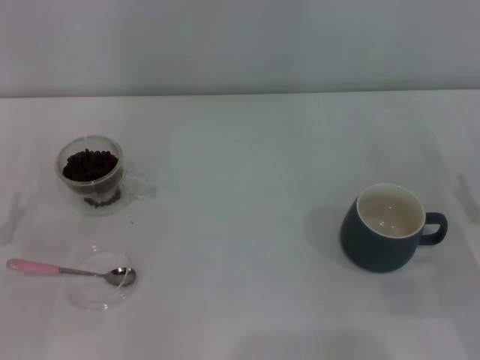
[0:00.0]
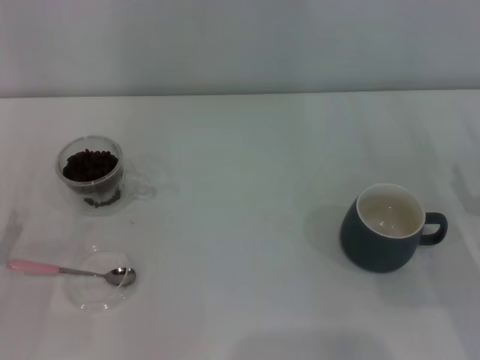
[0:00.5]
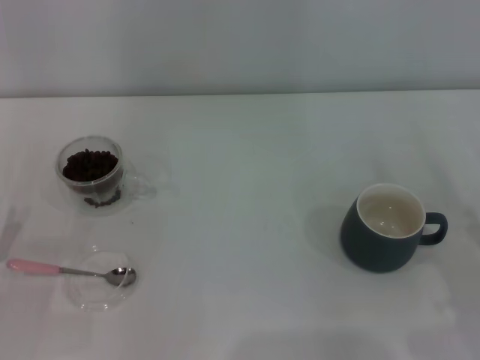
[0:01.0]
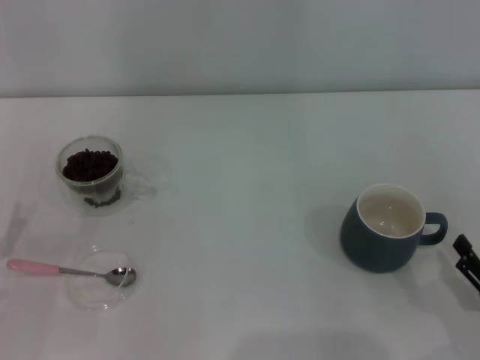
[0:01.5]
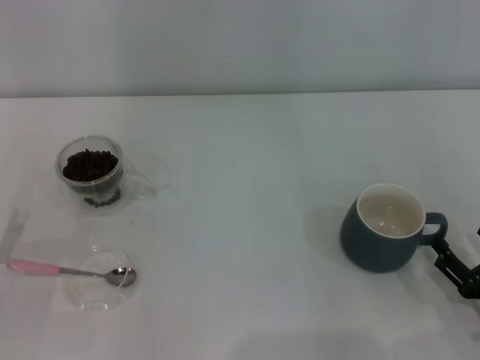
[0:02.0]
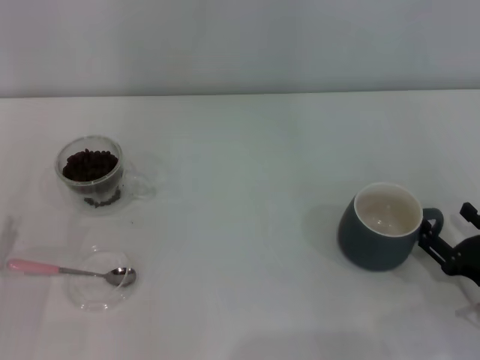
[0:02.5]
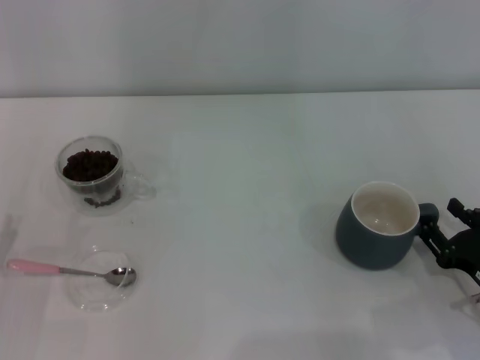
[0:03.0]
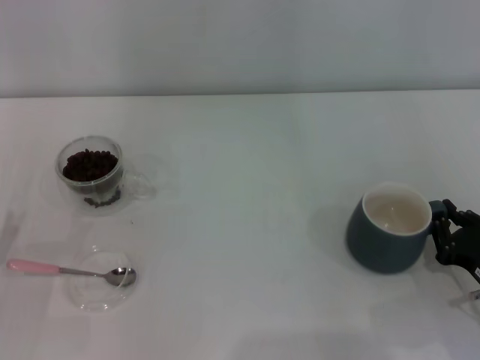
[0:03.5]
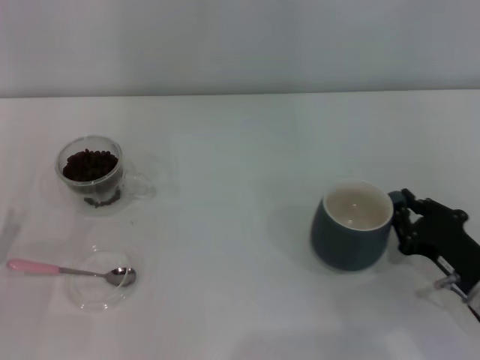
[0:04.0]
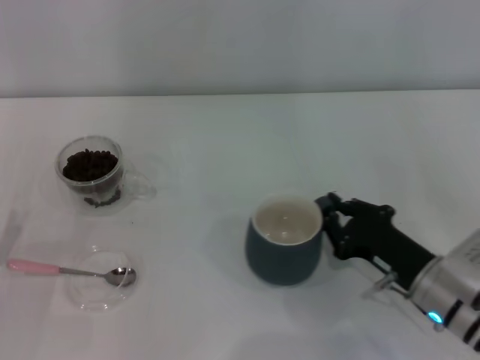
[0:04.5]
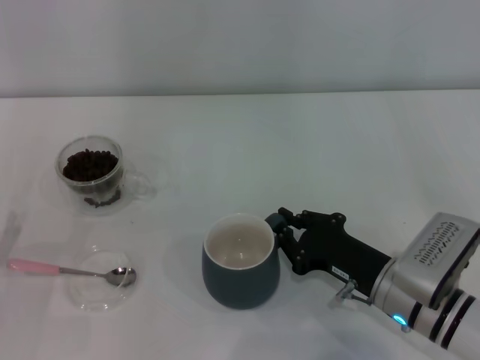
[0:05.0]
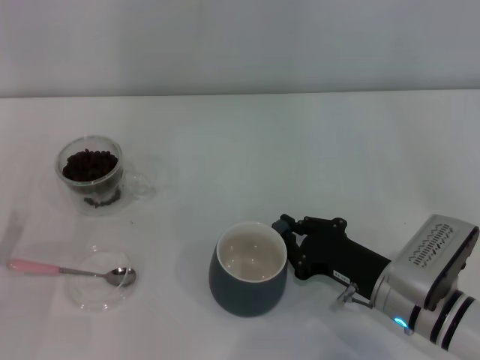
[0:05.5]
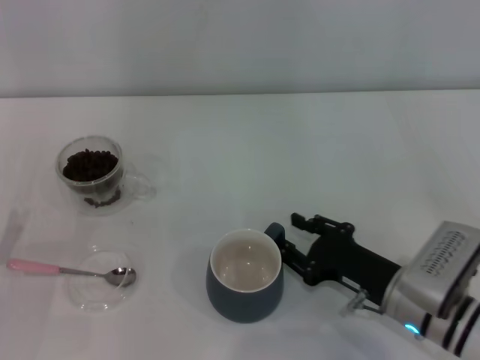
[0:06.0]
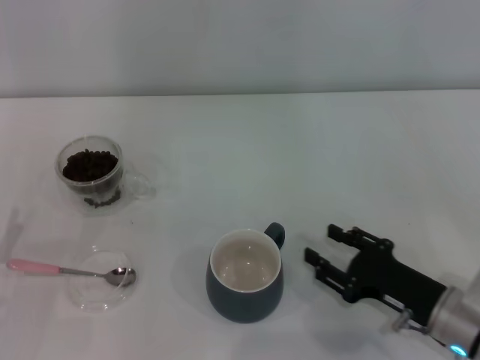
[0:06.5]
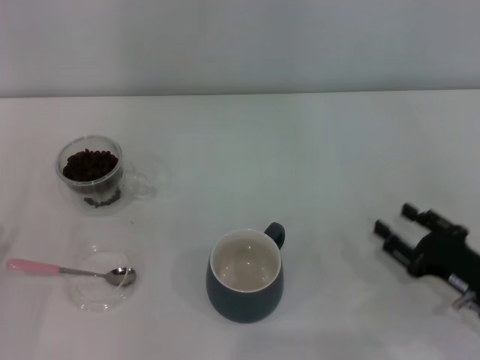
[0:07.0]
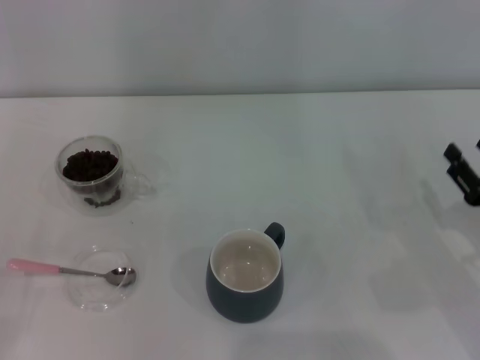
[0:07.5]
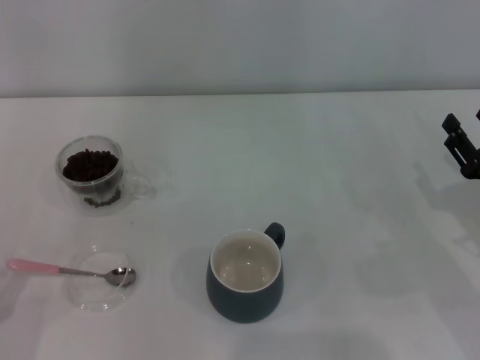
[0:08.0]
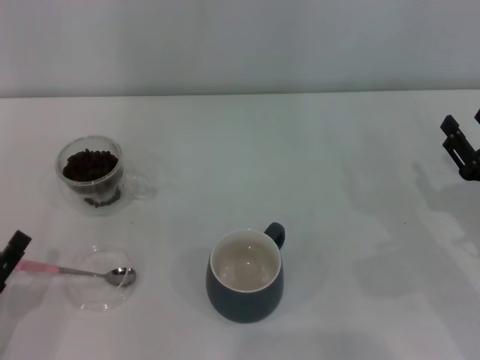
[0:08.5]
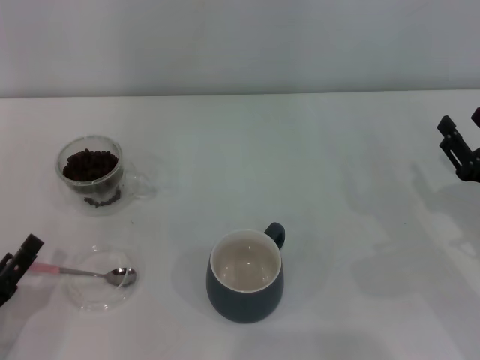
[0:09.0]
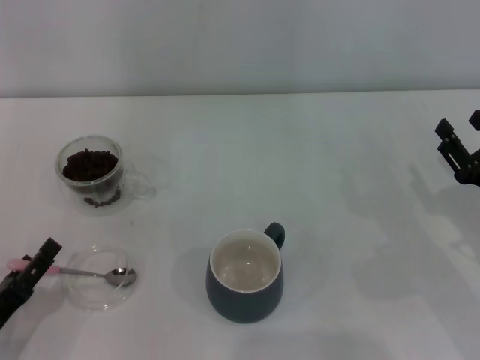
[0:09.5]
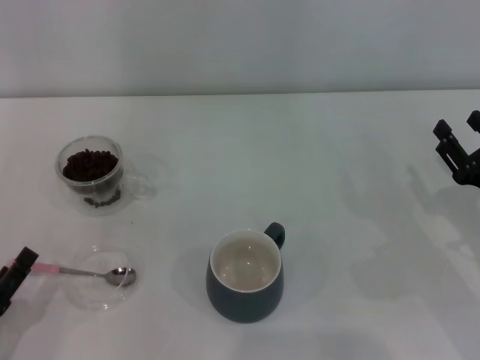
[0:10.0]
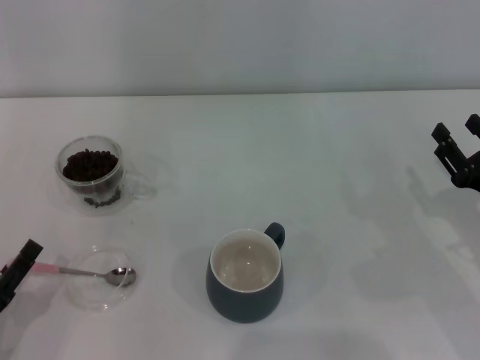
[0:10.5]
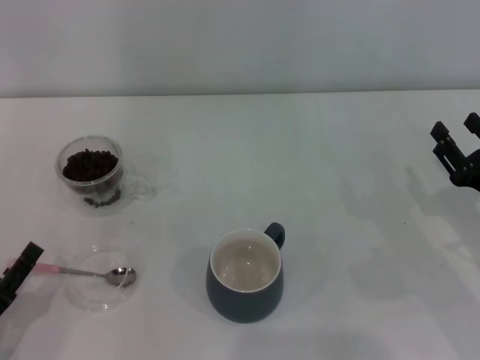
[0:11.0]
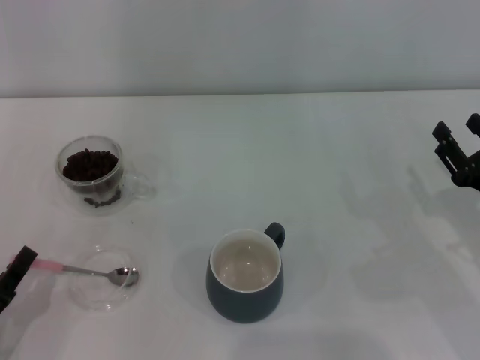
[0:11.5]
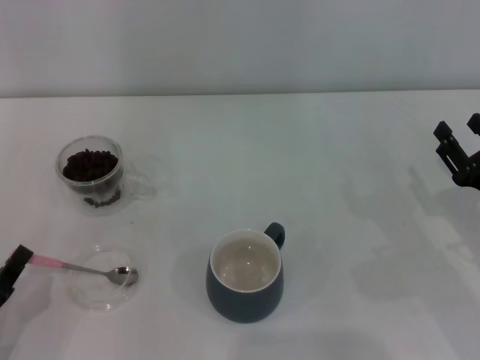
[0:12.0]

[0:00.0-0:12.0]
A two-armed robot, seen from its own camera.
Task of the whole recording: Use a pink spoon to take out the coffee beans from the glass and pour them into the gray cup.
Step, 0:00.0 to 0:06.5: Move the cup to the center of view with the left gripper.
0:00.0 to 0:02.0: The right gripper is displaced backward by approximately 5 cm.
0:02.0 to 0:04.0: The right gripper shifts approximately 5 cm forward, and closes.
0:04.0 to 0:06.0: The right gripper heads to the left, covering roughly 5 cm.
0:06.0 to 0:08.0: The left gripper is displaced backward by approximately 5 cm. Meanwhile the right gripper is displaced to the right by approximately 15 cm, and opens.
0:08.0 to 0:10.0: The grippers move only a little.
0:10.0 to 0:12.0: The left gripper closes.

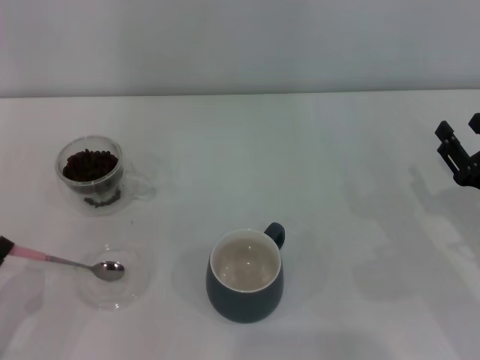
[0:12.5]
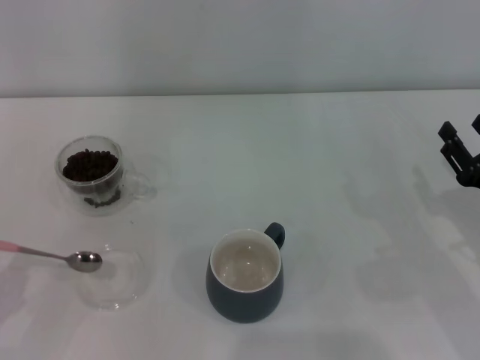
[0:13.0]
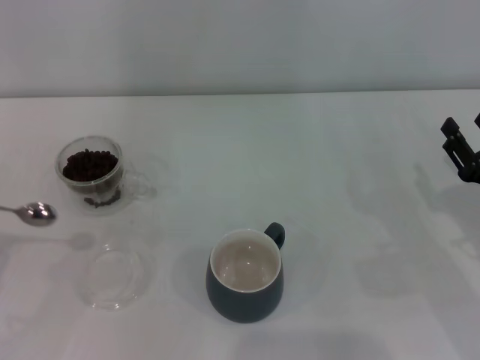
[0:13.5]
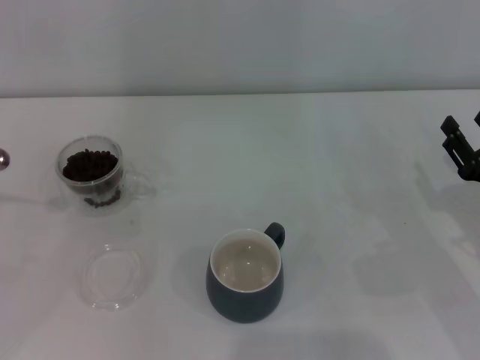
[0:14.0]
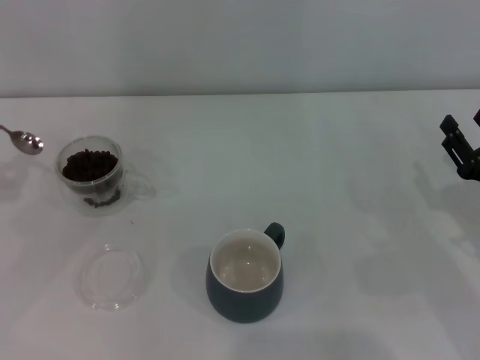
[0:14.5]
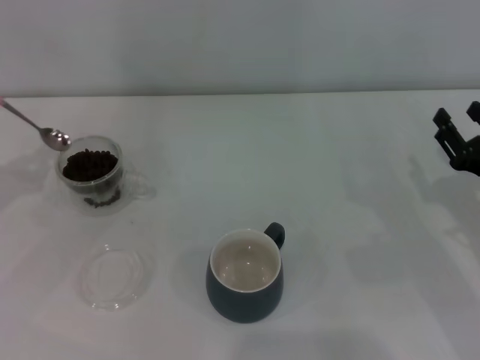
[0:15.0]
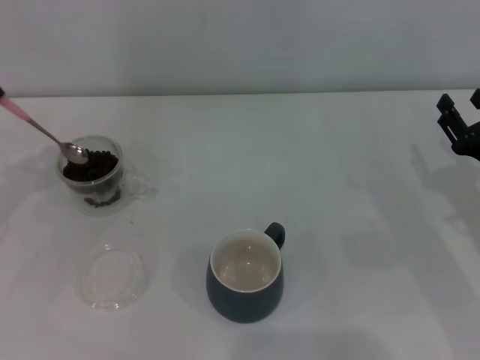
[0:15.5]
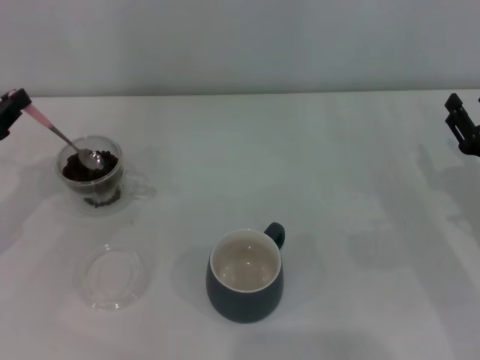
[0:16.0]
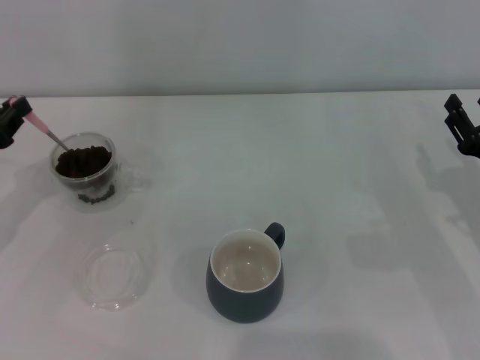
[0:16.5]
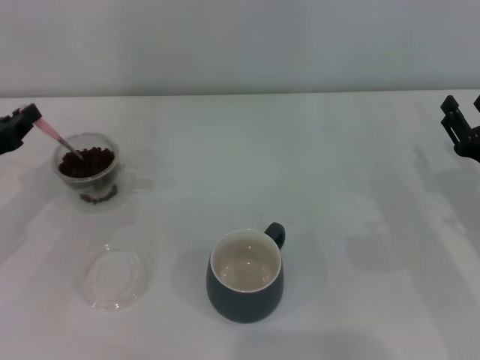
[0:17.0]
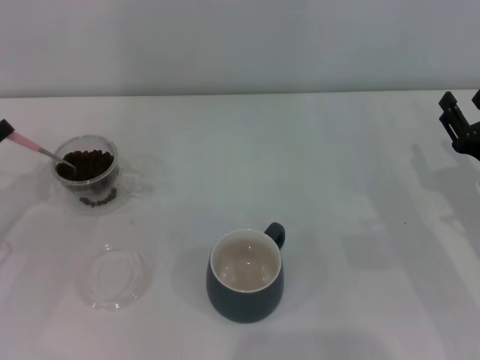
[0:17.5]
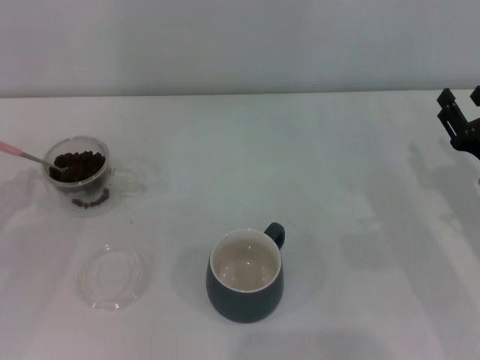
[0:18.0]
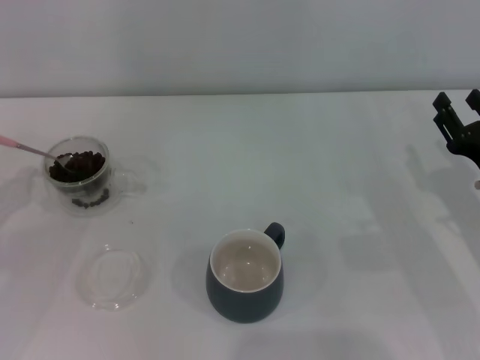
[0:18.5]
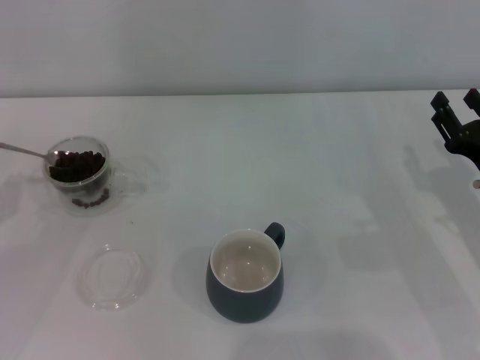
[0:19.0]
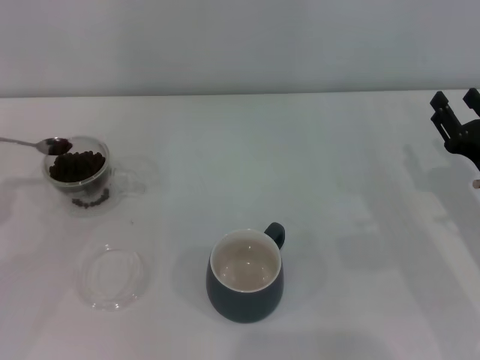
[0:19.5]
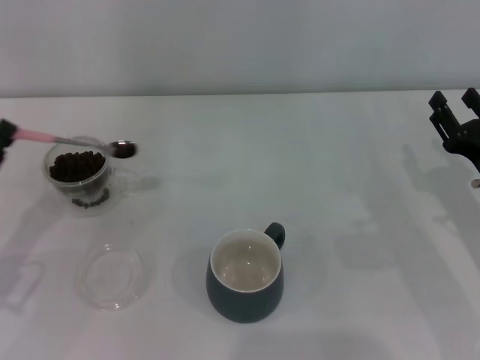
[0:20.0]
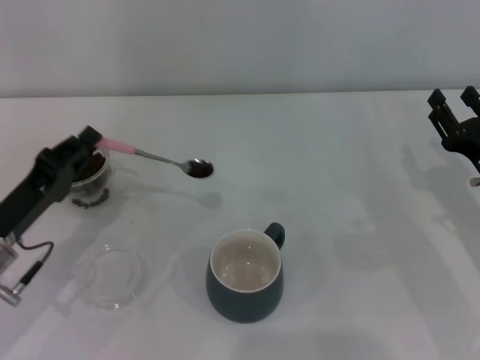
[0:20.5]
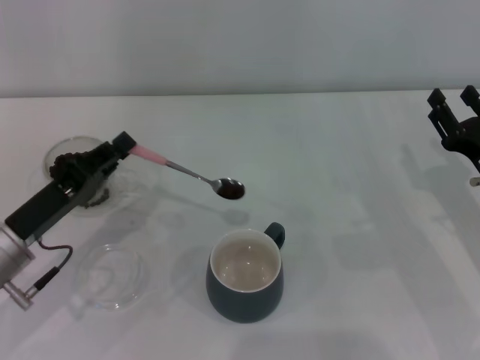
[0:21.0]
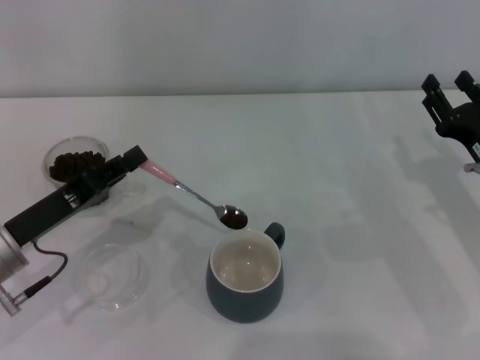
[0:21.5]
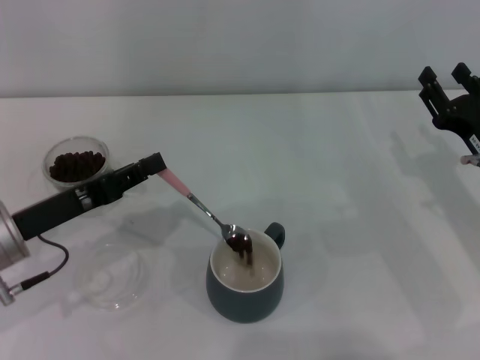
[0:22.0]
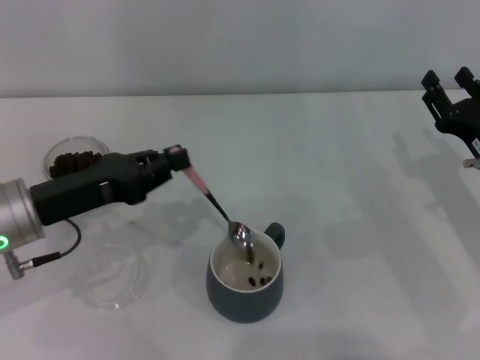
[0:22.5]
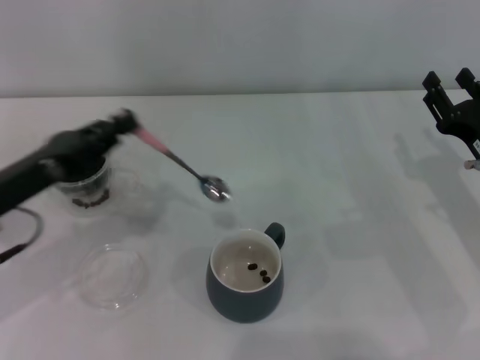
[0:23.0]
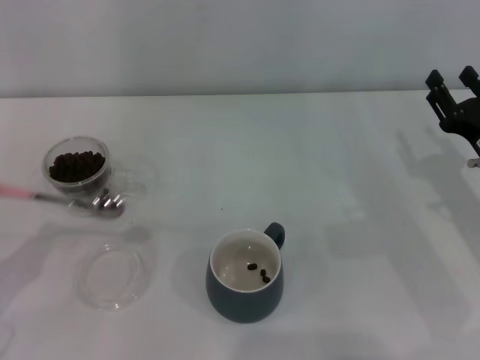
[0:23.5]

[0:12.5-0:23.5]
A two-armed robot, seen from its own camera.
Task of the whole recording: Use a pink spoon to take out the coffee beans from the glass and pour them into the gray cup.
0:12.5 to 0:14.5: The left gripper moves forward, upward and to the left, some 20 cm.
0:14.5 to 0:16.0: The left gripper heads to the right, covering about 5 cm.
0:16.0 to 0:18.0: The left gripper ends up roughly 5 cm from where it was.
0:18.0 to 0:20.0: The left gripper changes place by approximately 5 cm.
0:20.0 to 0:21.5: The left gripper moves to the right, about 5 cm.
0:21.5 to 0:23.5: The left gripper is displaced to the left and backward by some 10 cm.

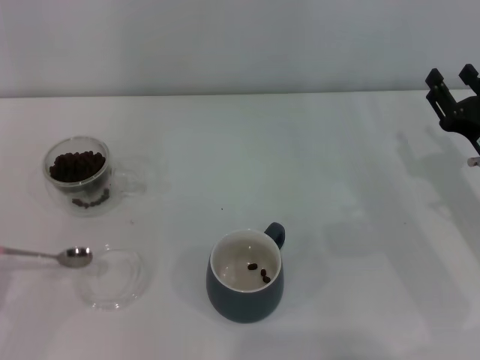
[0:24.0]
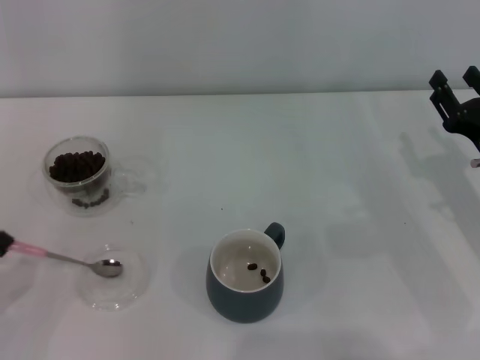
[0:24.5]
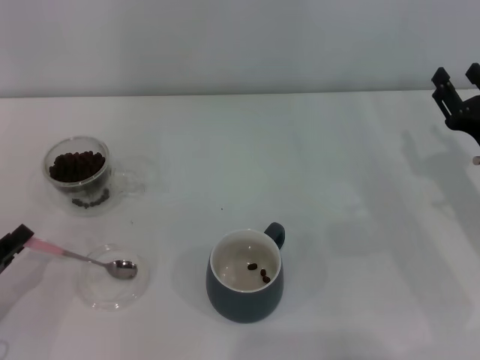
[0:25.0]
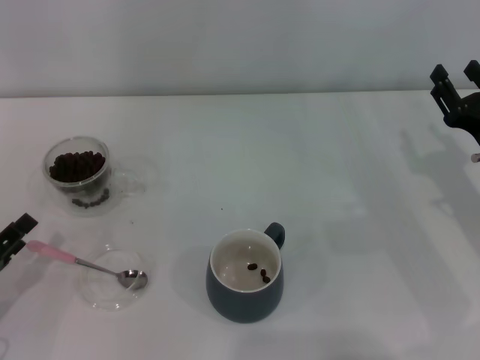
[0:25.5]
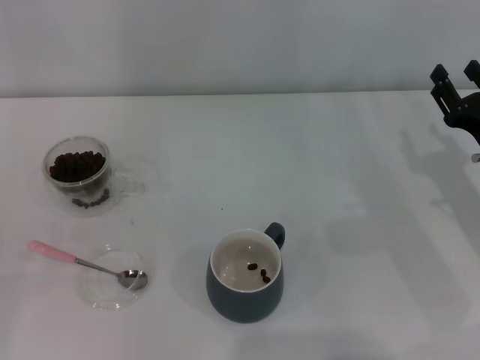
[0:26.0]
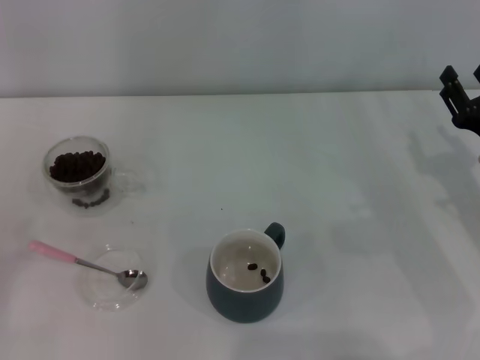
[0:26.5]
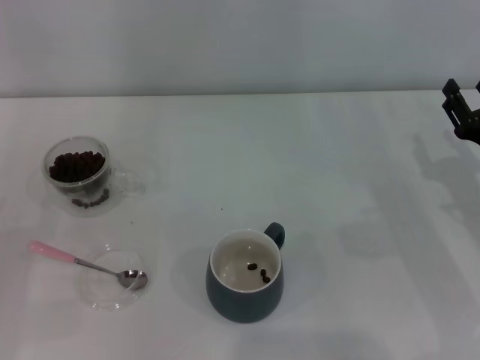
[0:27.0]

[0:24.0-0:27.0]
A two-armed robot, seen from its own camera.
Task of the whole recording: Use a pink spoon to take out the coffee beans from the glass and pour them into the gray cup.
0:24.0 to 0:25.5: The left gripper goes roughly 5 cm forward, and opens its fingers.
0:25.5 to 0:27.0: The left gripper shifts by approximately 5 cm, and opens up.
